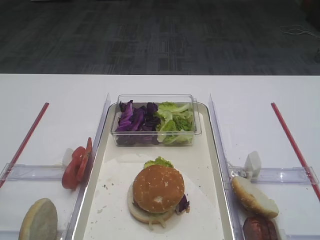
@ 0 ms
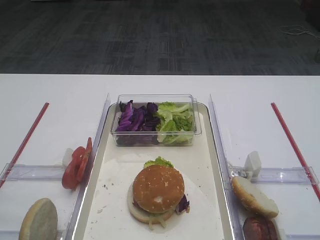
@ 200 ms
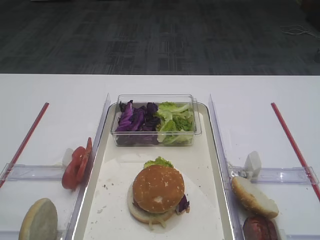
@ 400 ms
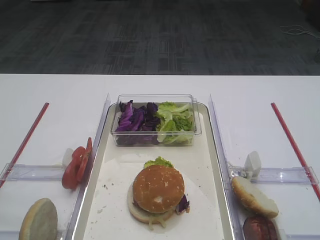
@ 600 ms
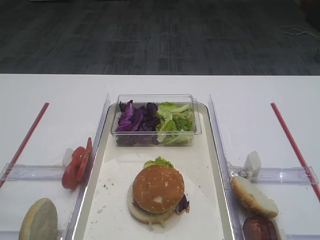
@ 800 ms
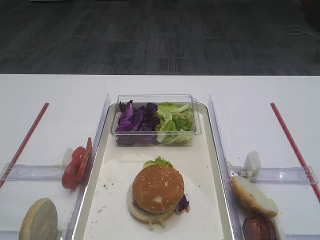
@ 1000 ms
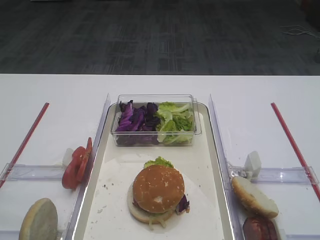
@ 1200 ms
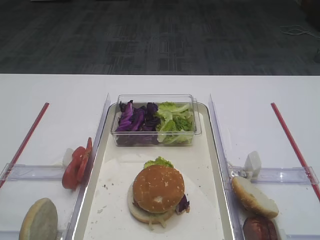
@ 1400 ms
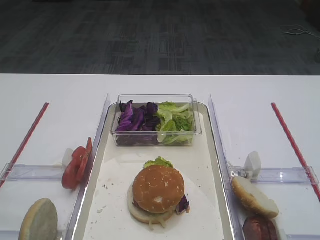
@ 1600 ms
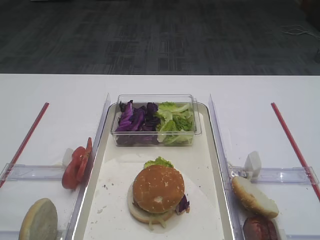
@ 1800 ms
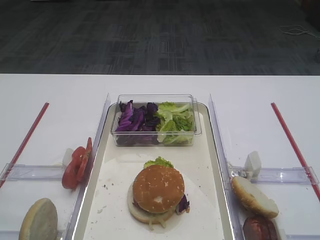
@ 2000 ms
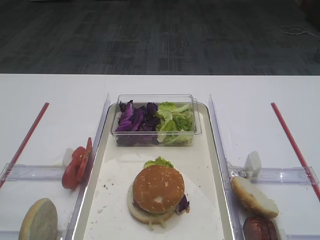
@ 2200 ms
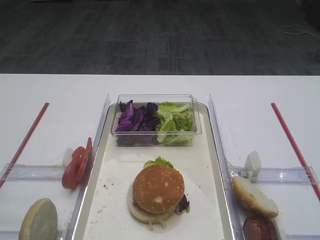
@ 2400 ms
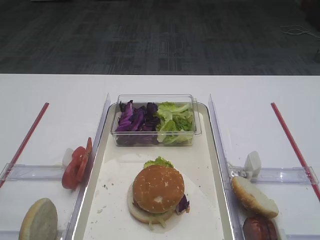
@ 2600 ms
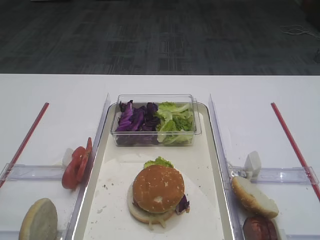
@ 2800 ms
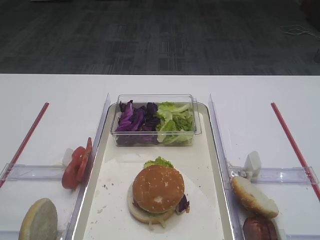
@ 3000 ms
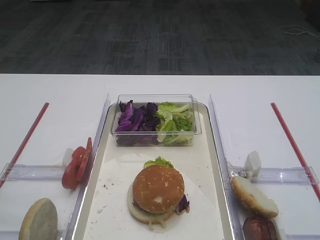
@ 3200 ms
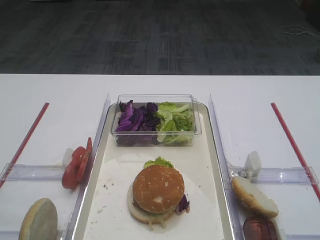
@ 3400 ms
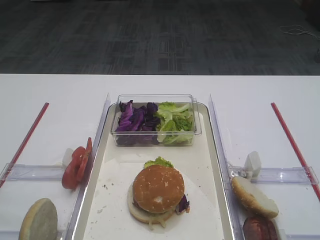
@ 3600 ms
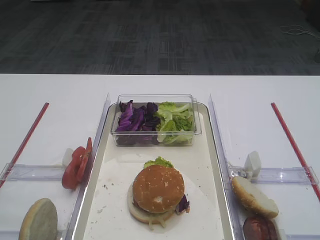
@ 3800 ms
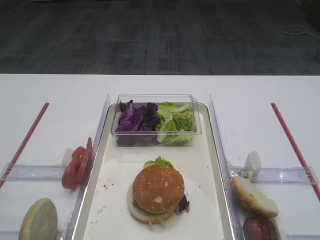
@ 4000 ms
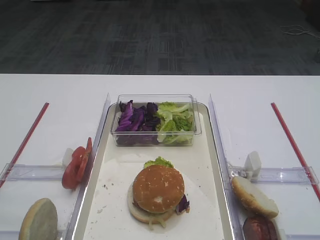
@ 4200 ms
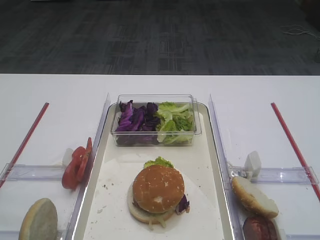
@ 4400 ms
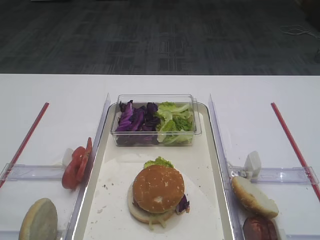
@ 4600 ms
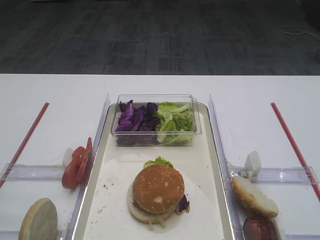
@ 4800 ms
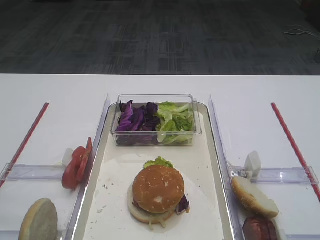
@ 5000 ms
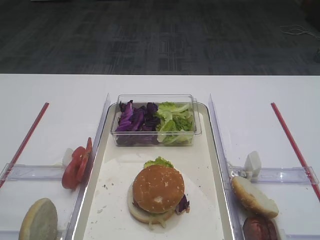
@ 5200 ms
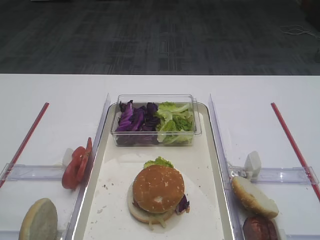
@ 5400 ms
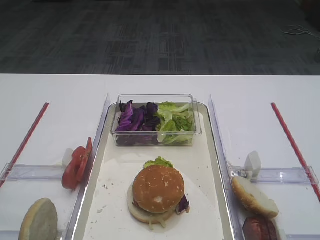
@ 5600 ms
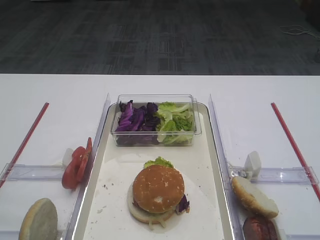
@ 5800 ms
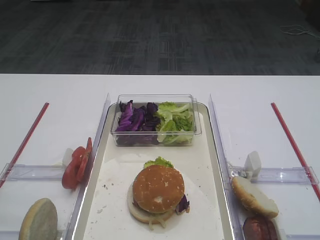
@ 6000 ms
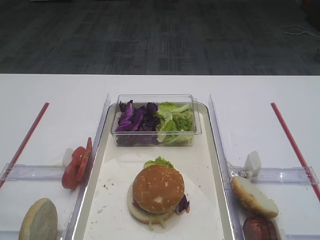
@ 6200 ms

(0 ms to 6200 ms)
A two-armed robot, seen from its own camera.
1600 ms - 6200 ms: Both grippers stay about where they are.
